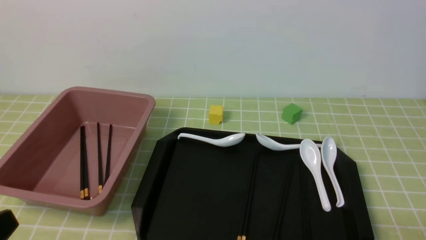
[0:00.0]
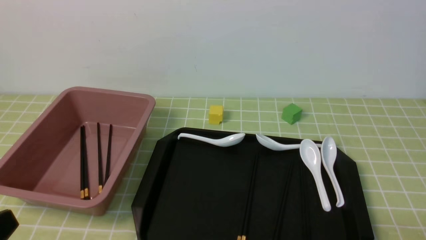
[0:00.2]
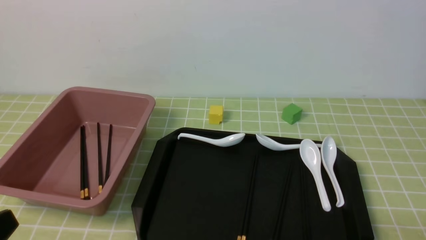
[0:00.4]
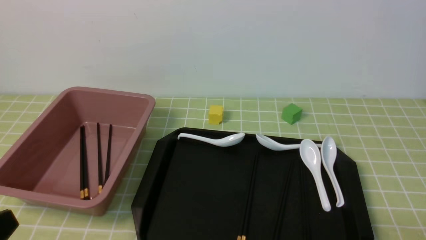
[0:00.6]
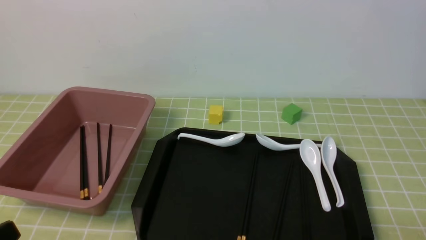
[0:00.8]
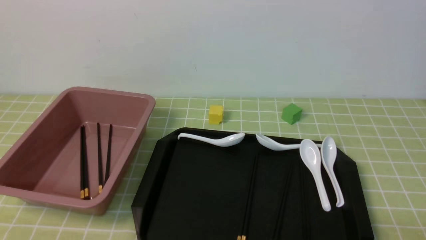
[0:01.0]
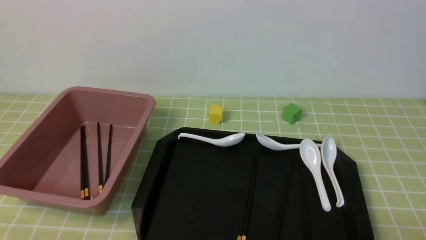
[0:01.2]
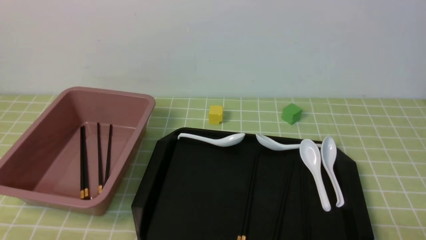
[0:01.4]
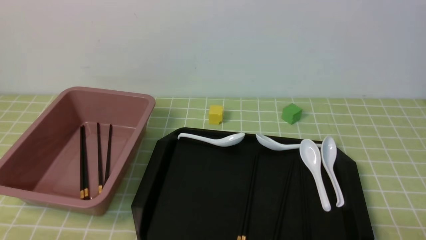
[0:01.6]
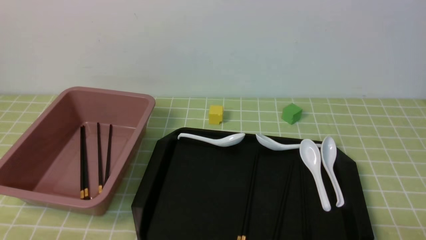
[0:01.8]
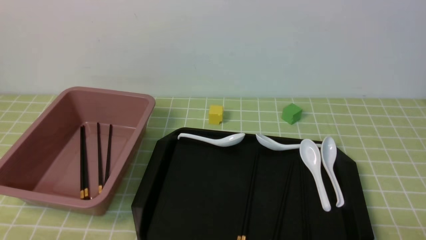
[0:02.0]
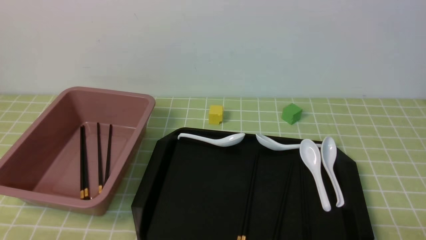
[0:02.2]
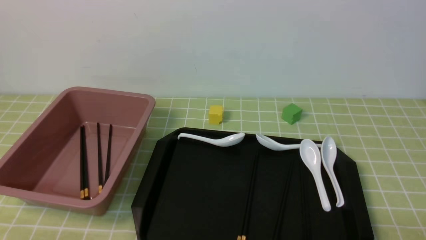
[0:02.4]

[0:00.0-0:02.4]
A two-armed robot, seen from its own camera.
0:01.2 to 0:02.4: Both grippers stay put.
